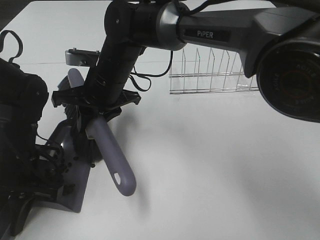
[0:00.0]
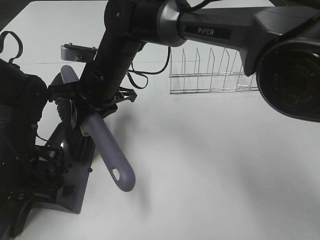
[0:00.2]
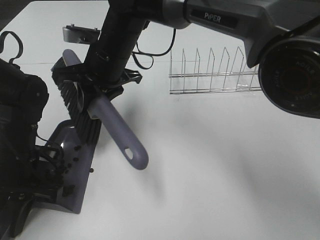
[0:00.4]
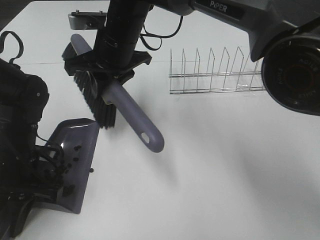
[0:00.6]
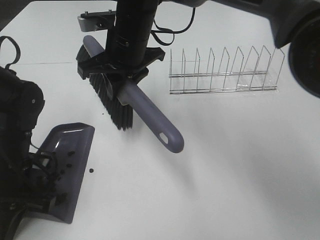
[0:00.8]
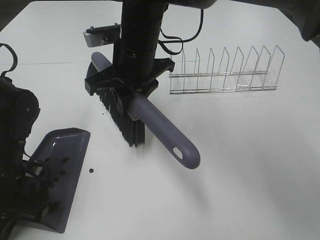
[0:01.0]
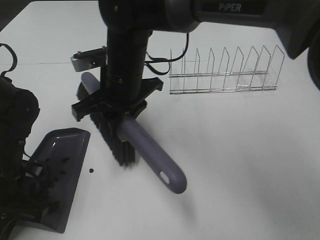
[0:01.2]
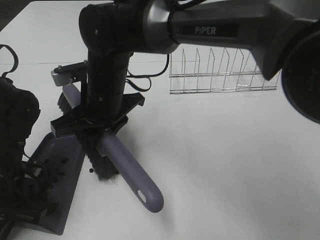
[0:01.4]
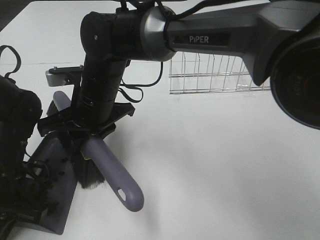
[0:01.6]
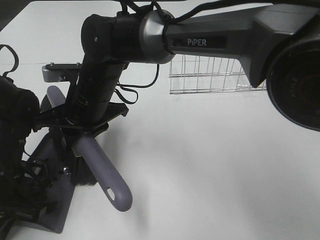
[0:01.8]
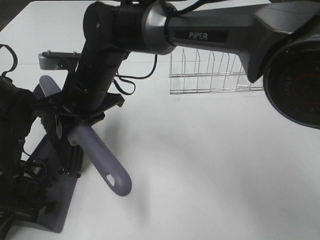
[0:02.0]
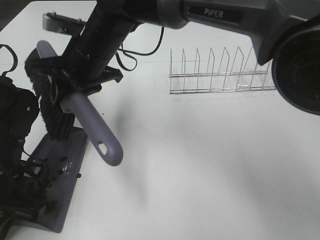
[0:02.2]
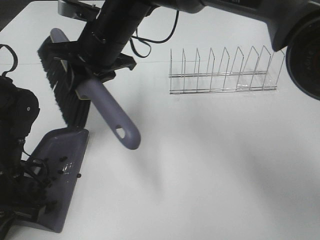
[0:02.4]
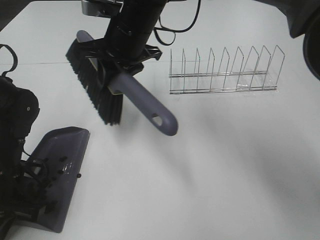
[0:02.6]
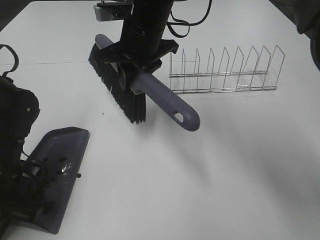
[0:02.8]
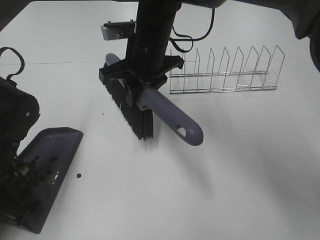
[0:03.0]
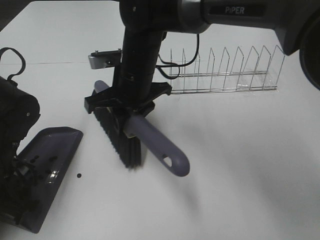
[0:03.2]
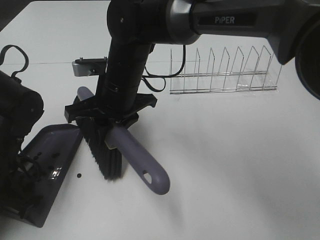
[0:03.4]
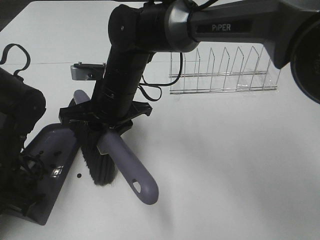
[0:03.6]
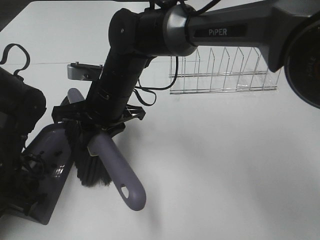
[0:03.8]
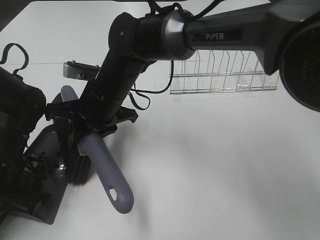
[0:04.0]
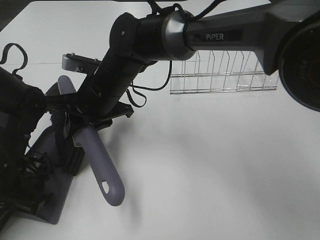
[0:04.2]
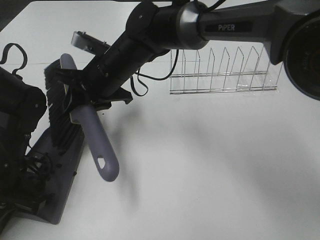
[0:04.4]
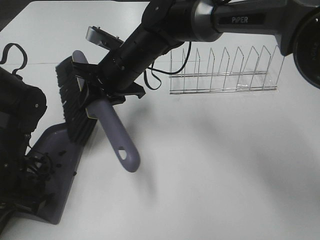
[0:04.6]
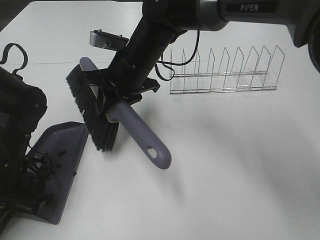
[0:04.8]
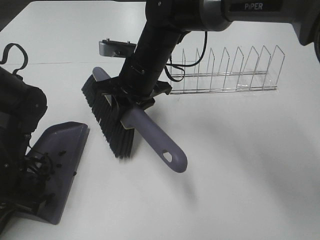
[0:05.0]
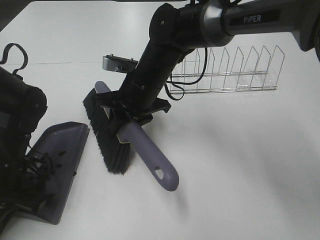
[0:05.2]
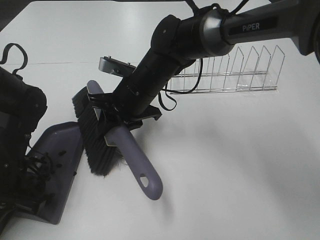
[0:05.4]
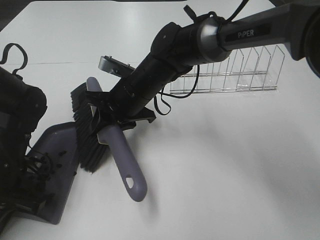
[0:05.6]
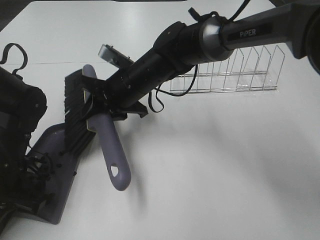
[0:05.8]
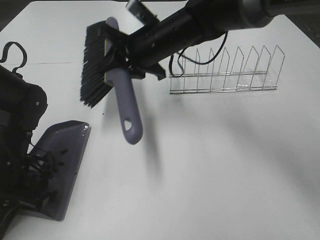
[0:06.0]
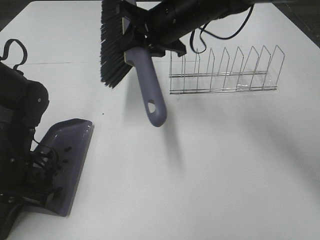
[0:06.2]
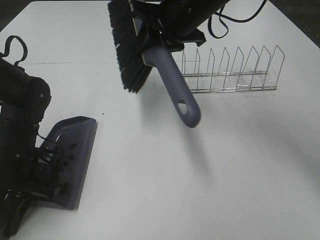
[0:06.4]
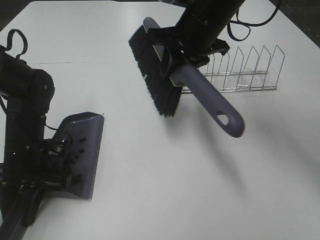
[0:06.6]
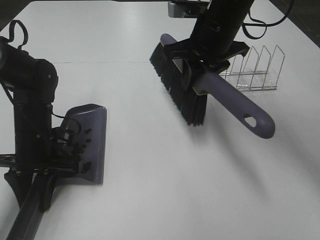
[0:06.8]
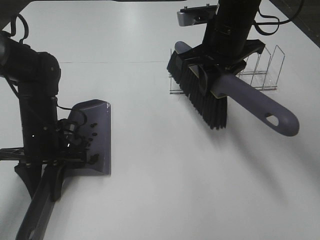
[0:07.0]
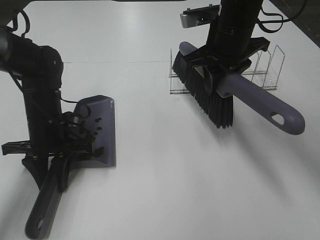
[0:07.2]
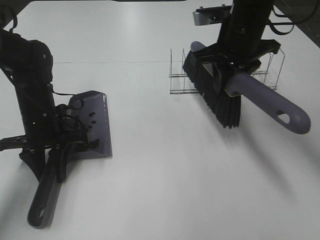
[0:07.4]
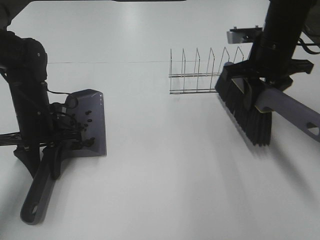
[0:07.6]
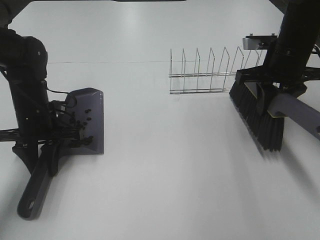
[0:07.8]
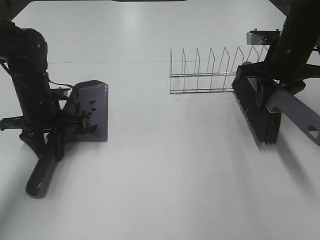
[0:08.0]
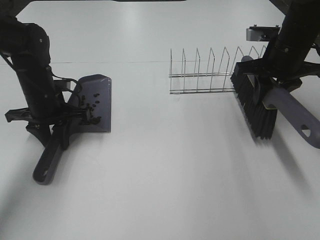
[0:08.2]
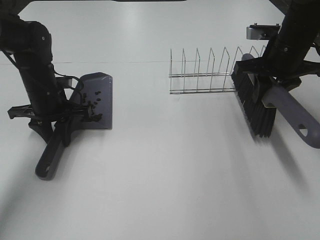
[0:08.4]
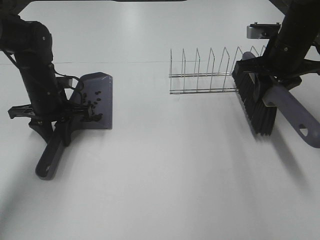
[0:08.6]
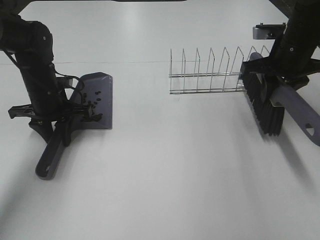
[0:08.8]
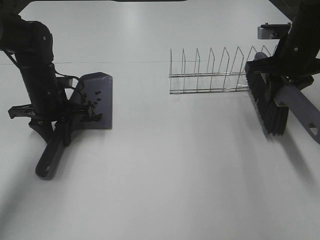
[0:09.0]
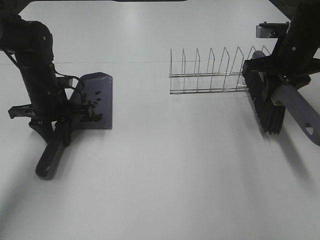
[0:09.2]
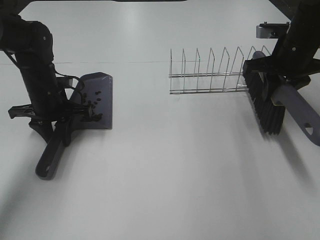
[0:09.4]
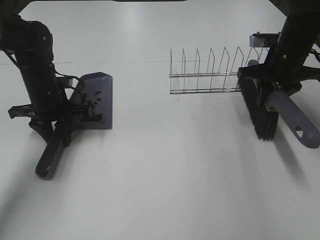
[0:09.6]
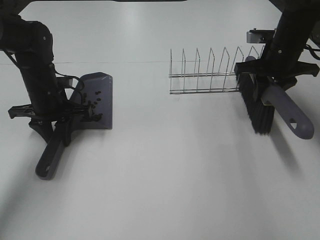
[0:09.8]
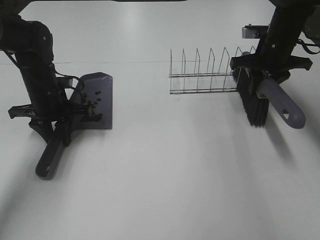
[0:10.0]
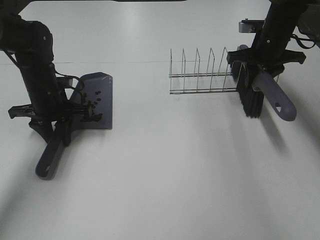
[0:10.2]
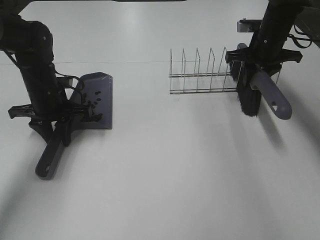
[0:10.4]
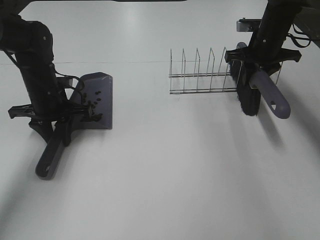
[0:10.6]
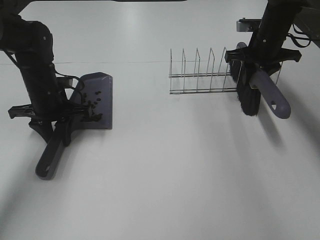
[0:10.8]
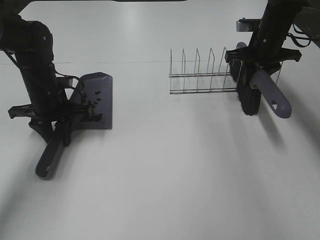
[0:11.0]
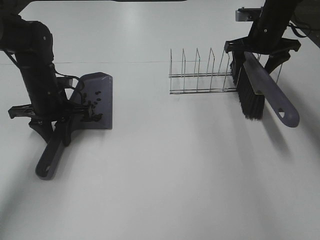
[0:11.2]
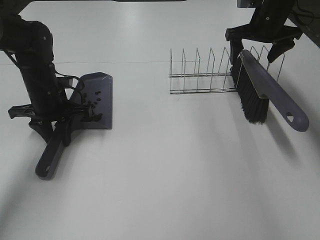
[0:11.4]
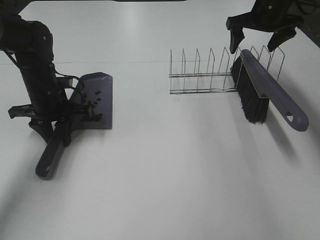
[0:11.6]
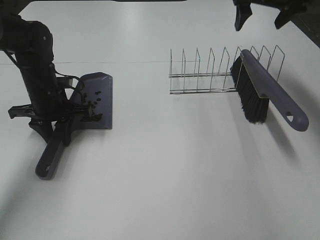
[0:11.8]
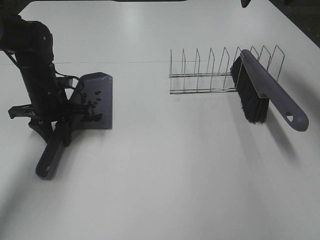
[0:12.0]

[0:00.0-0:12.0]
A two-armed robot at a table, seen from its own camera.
Task of the whole recording: Sweep Coffee Bean.
Step, 0:00.0 to 0:05.6: Right hand:sweep the coffee beans into the dustpan.
Step, 0:05.8 to 0:11.2: Right hand:place the broom on the rack.
0:01.6 to 0:03.0: The right gripper heads to the right, forward and upward, covering about 10 cm.
0:03.0 to 0:04.4: The right gripper travels to the left by approximately 5 cm.
0:04.4 to 0:06.0: The right gripper heads to the right, covering about 10 cm.
0:06.0 to 0:07.6: The left gripper heads forward, covering about 10 cm. Meanwhile the right gripper travels to the right by roughly 20 cm.
0:07.6 to 0:09.0: The right gripper heads to the right, covering approximately 5 cm. Meanwhile the left gripper travels forward by approximately 5 cm.
0:09.0 to 0:10.4: The right gripper moves forward, about 10 cm.
0:10.4 to 0:12.0: The right gripper is displaced upward by some 15 cm, and opens up.

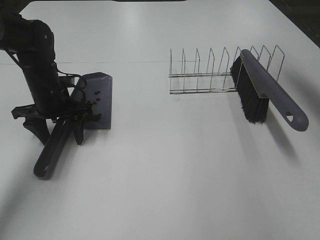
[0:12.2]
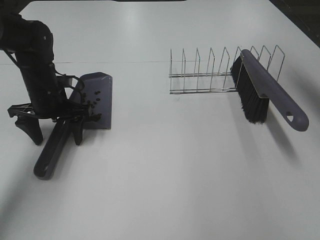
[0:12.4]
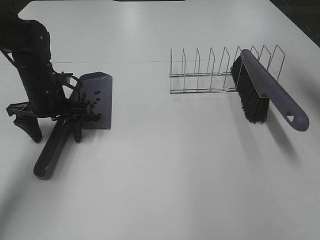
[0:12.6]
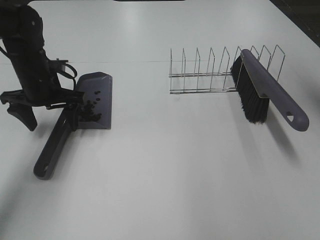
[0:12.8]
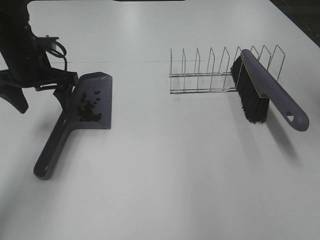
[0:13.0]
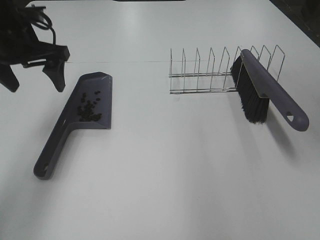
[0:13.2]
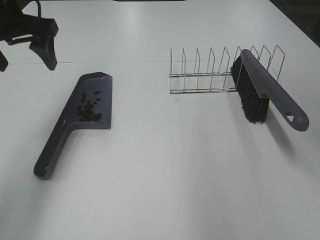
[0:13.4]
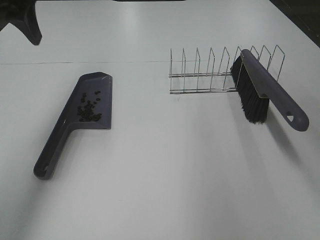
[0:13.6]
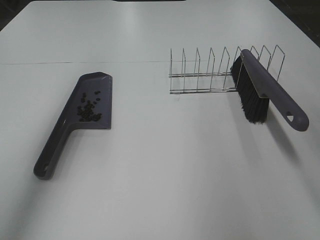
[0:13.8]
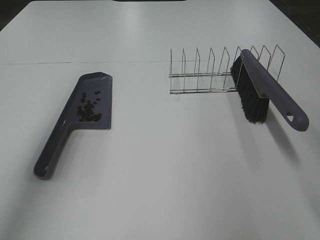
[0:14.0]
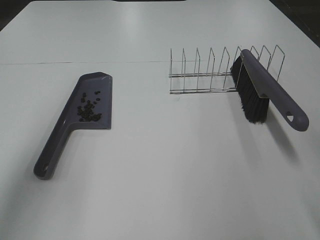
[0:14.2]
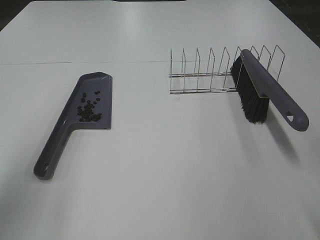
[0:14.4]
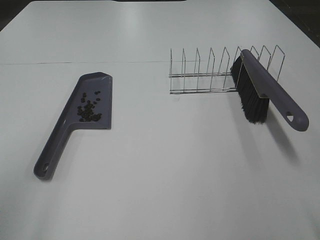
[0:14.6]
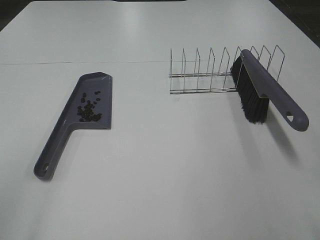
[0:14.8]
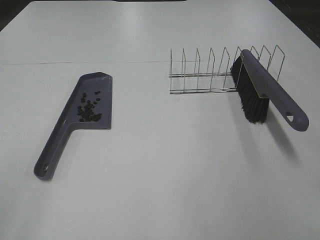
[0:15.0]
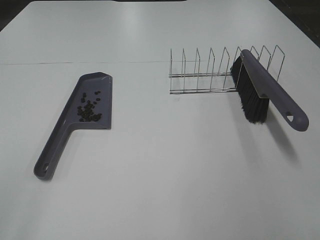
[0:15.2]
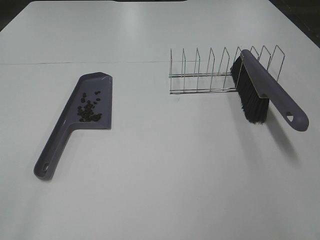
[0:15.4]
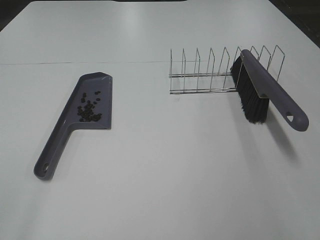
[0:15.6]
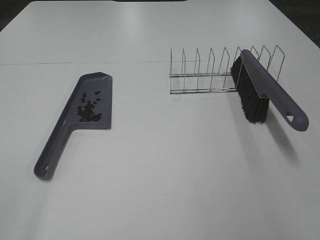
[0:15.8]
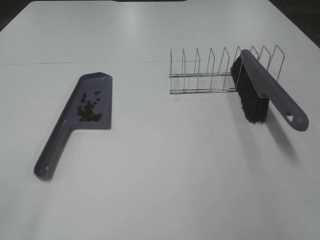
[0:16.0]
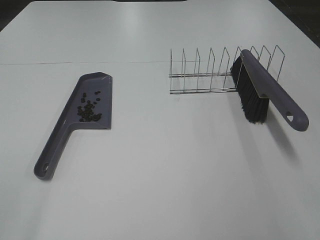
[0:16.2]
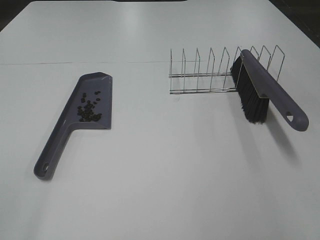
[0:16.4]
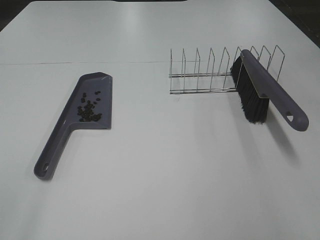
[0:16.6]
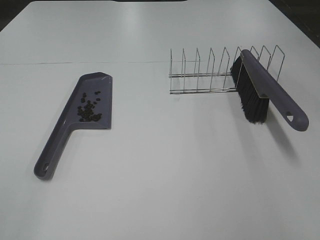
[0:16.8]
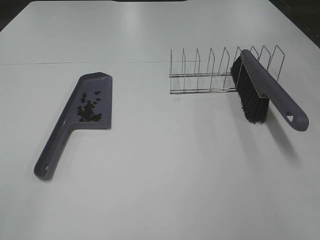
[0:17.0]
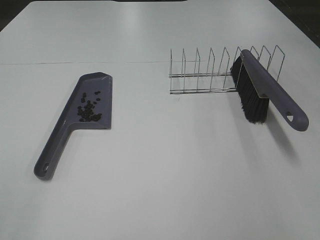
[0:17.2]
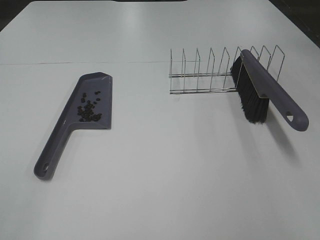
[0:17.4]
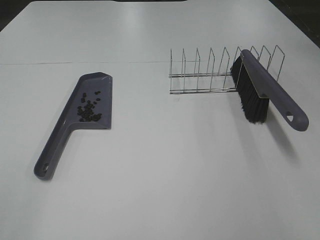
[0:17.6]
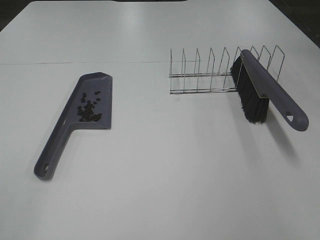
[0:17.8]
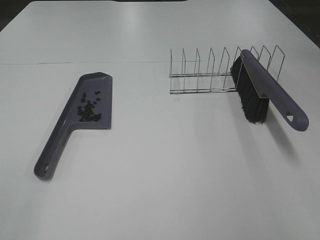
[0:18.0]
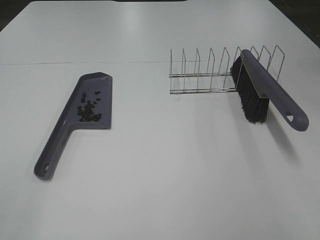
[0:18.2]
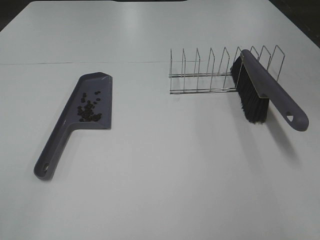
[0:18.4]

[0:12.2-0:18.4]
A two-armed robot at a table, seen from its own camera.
Task of the whole recording: Sweep Coffee Bean.
0:12.2 to 0:13.8: The left gripper shifts roughly 30 cm upward. The right gripper shifts roughly 30 cm backward.
0:13.8 to 0:15.4: The left gripper moves backward and downward, some 30 cm.
0:16.8 to 0:18.4: The two grippers keep their place.

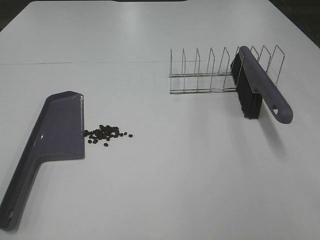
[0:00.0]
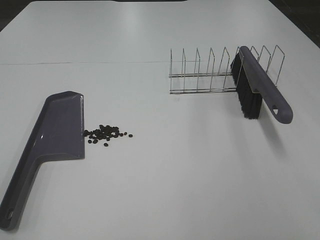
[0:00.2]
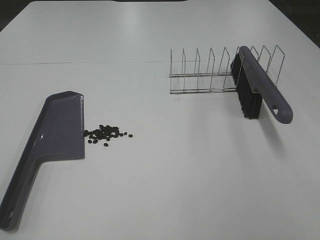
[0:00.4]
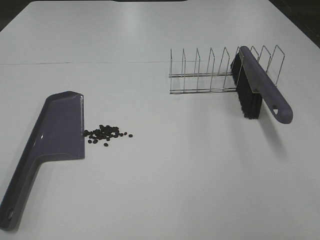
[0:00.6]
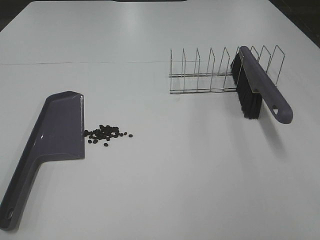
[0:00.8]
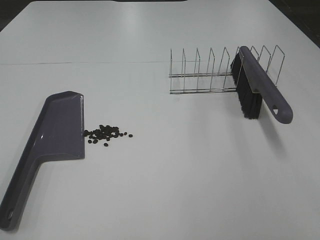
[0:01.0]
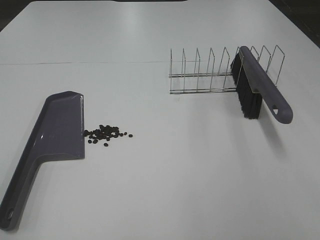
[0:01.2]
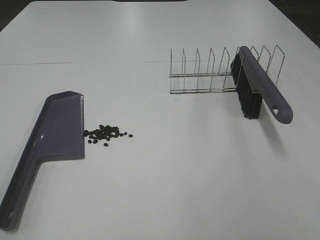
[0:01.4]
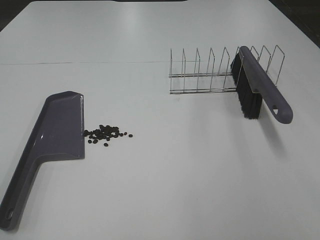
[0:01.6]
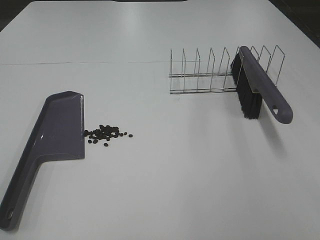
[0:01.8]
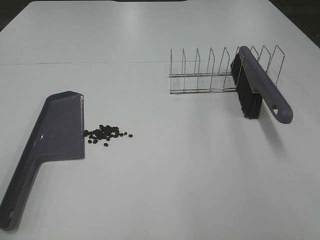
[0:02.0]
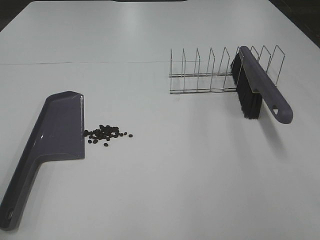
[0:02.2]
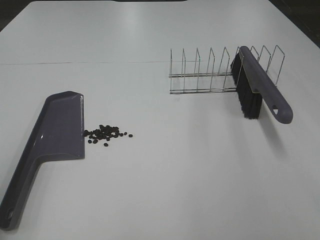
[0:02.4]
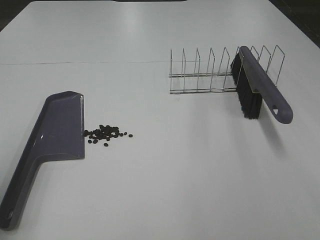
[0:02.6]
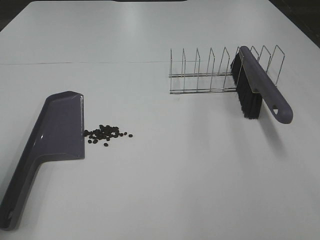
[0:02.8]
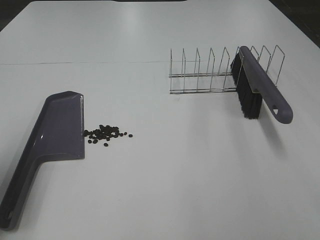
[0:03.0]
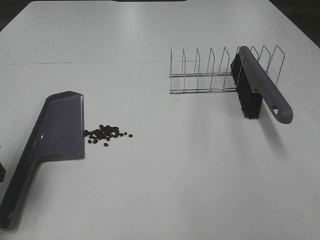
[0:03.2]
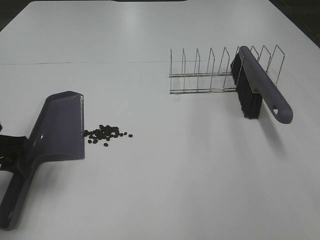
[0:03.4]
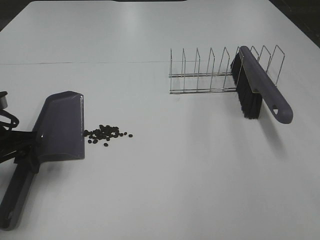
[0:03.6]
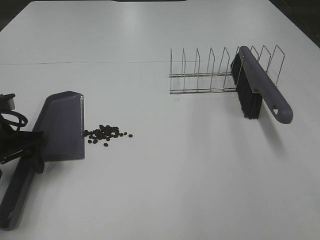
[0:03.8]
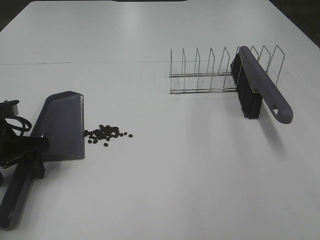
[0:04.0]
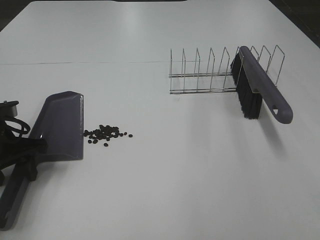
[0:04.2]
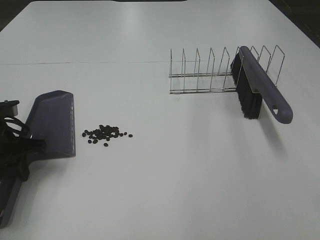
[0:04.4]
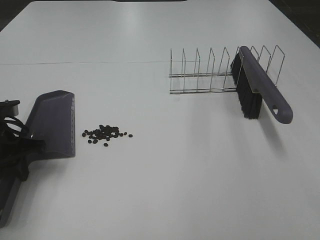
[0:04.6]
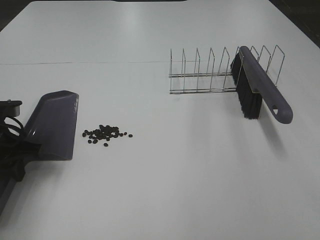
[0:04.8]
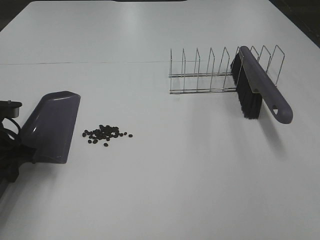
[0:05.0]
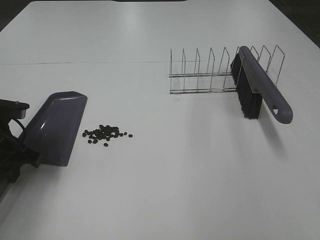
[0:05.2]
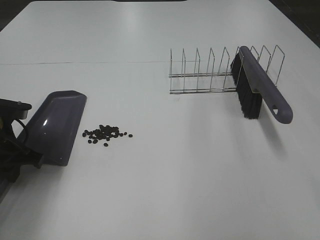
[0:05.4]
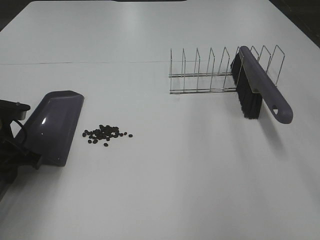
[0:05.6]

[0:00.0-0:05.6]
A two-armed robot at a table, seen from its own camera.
Task of the whole recording: Sweep Coffee Bean.
Step, 0:00.0 to 0:04.6: Left hand: grab the dustpan.
0:00.0 to 0:01.4: Both grippers stay put.
0:01.4 to 0:02.8: The left gripper shifts some 15 cm forward.
0:02.8 to 0:04.2: The left gripper moves downward and forward, about 20 cm, and closes up.
0:04.2 to 0:05.6: The left gripper closes up.
